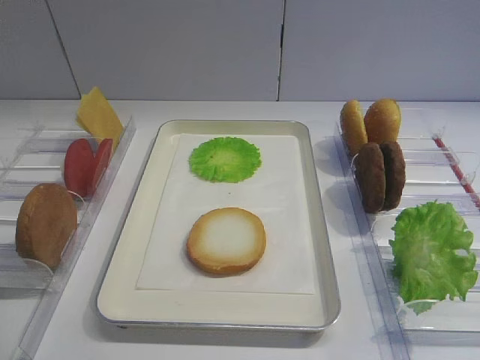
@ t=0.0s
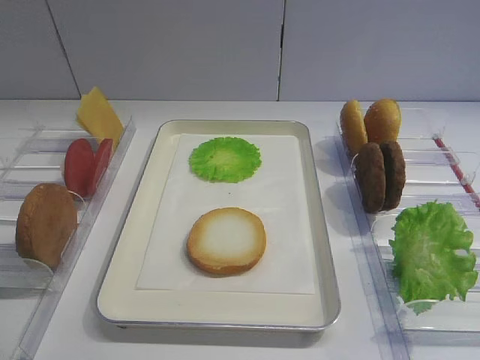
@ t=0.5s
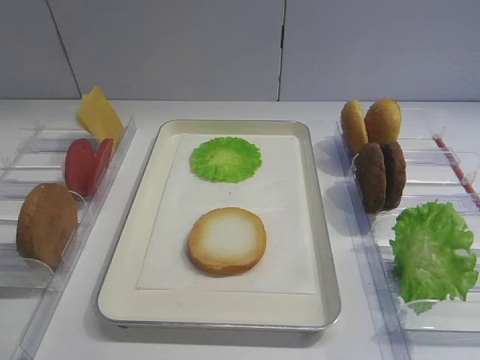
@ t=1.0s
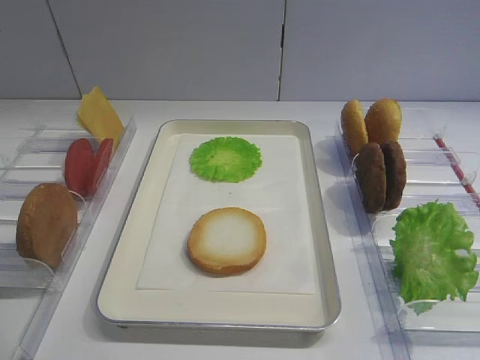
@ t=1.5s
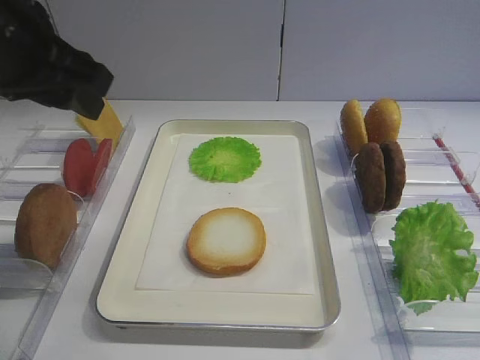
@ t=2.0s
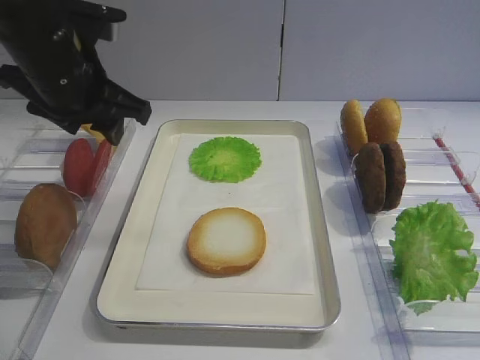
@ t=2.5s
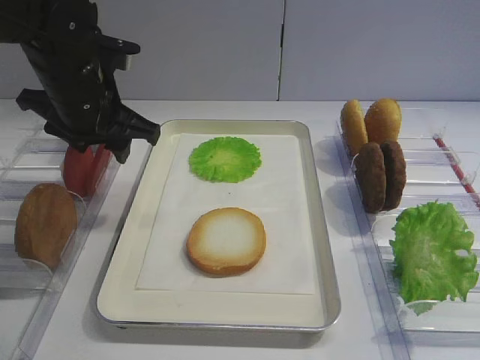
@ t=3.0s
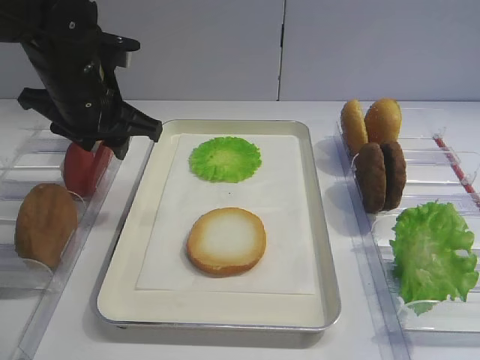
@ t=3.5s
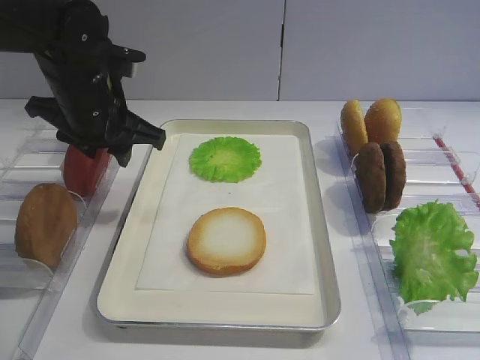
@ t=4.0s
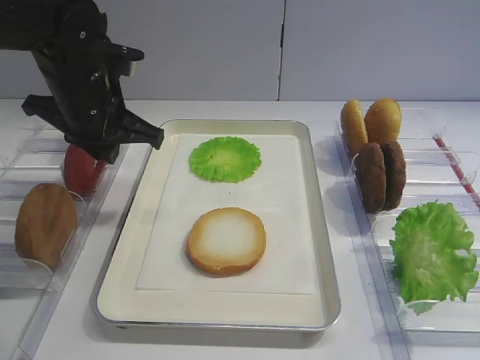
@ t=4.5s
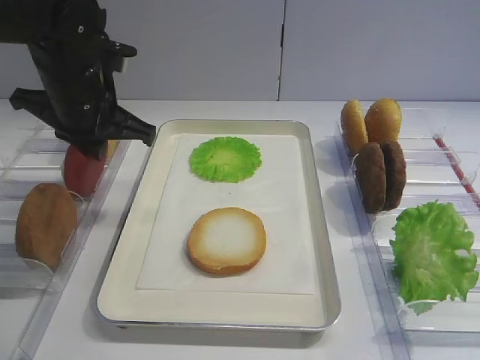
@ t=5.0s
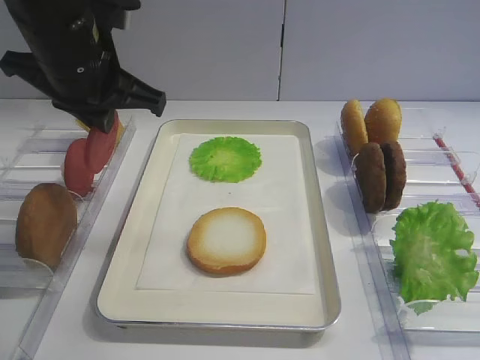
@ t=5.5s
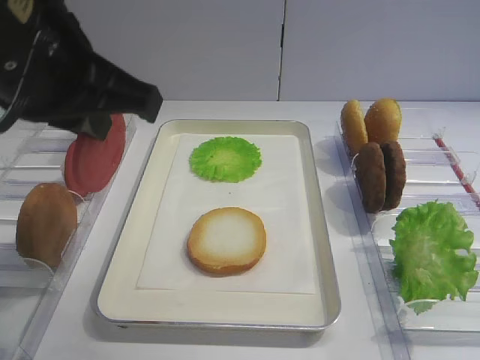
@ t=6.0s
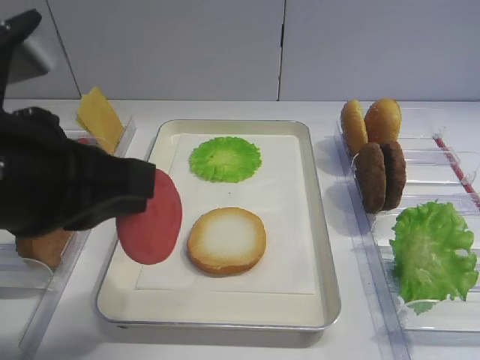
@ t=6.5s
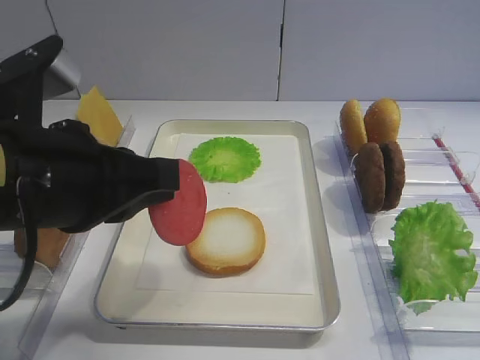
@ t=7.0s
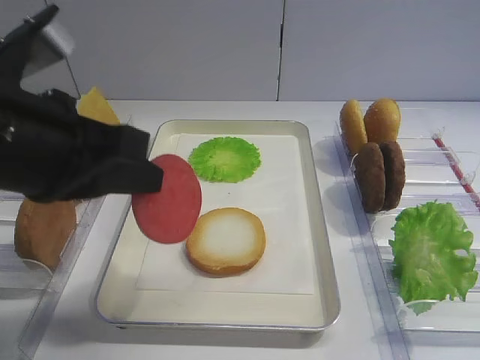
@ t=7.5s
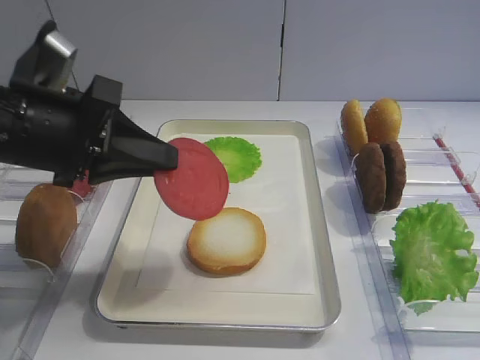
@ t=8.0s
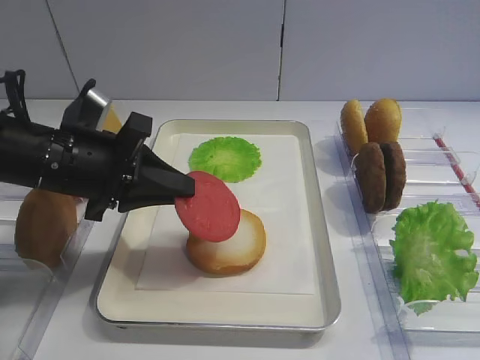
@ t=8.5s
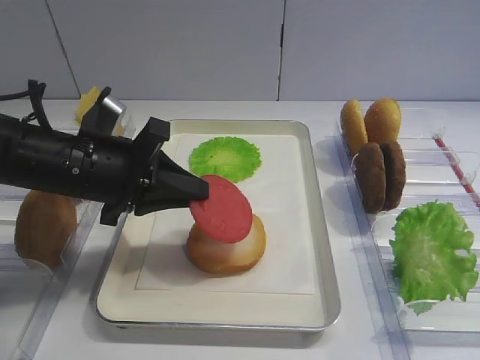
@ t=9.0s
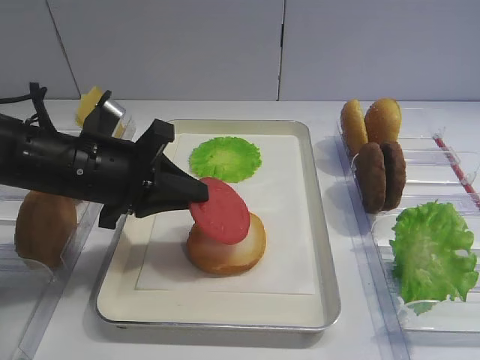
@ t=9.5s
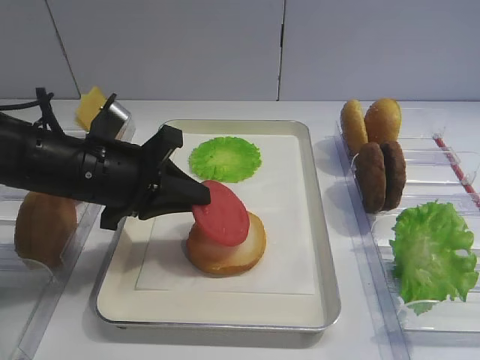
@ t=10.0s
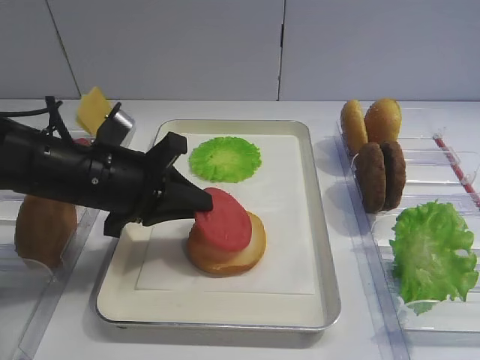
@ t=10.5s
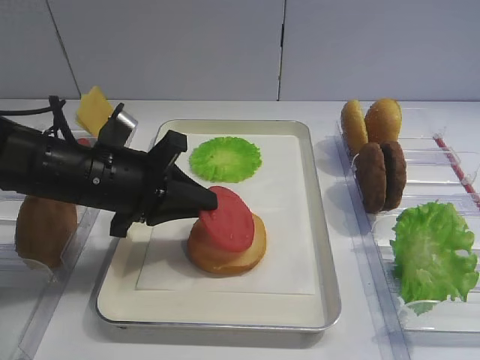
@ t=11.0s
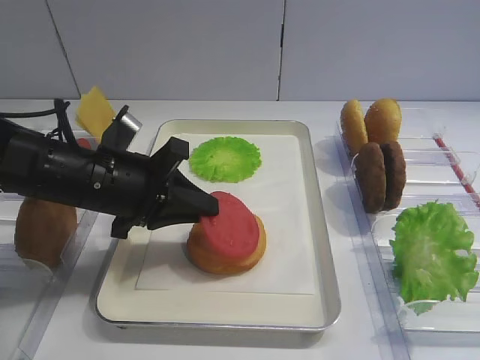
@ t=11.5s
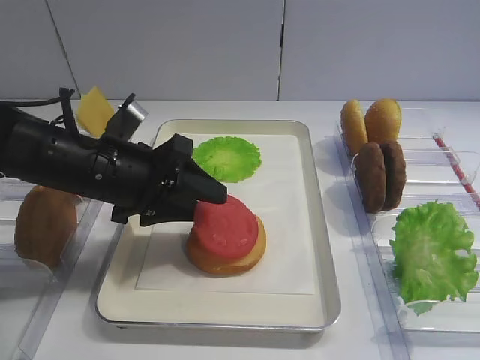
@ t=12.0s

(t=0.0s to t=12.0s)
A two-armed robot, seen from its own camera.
Step, t=0.0s - t=5.5s: Pick up the tomato slice with the left gripper.
t=2.0s - t=4.0s: The left gripper is displaced downward and forward by approximately 15 cm.
t=4.0s - t=6.0s: The left gripper shifts some 20 cm backward and upward, and closes its fingers.
t=6.0s - t=8.0s: The left gripper is displaced downward by about 10 cm.
t=8.0s - t=10.0s: The left gripper heads downward, covering some 5 cm.
t=10.0s - t=12.0s: The left gripper opens up.

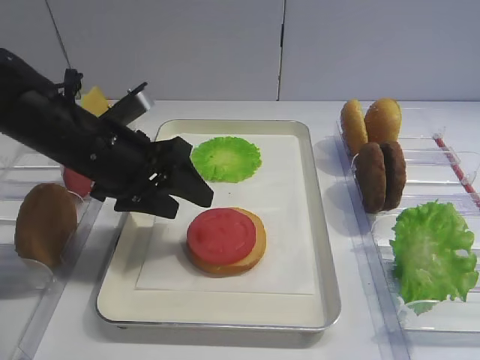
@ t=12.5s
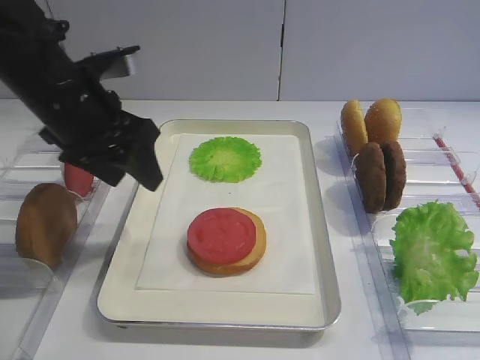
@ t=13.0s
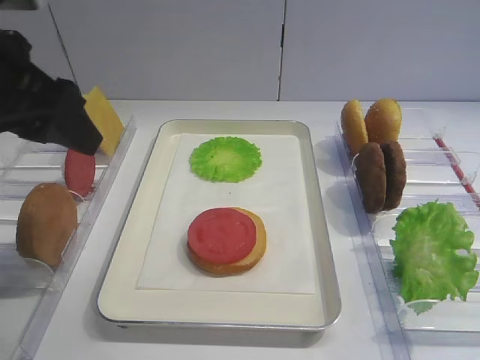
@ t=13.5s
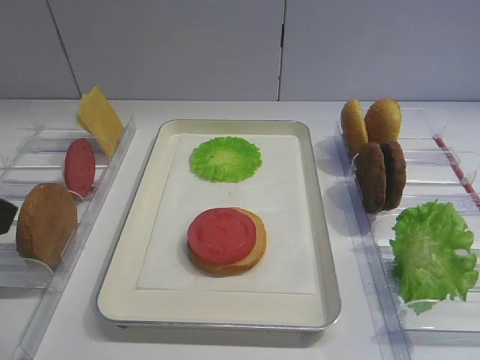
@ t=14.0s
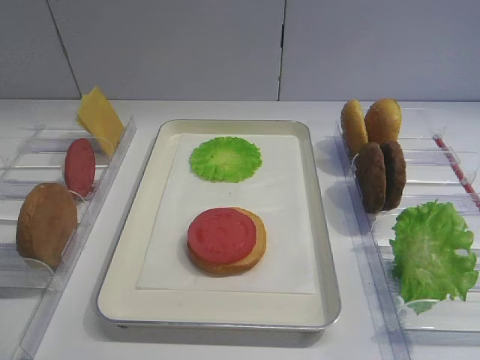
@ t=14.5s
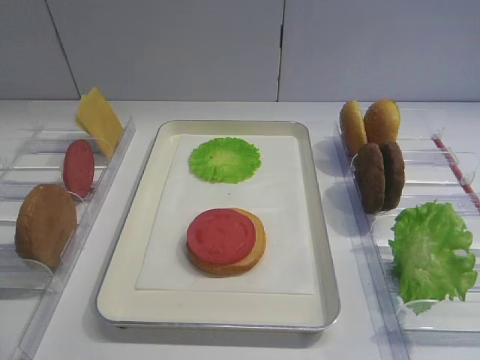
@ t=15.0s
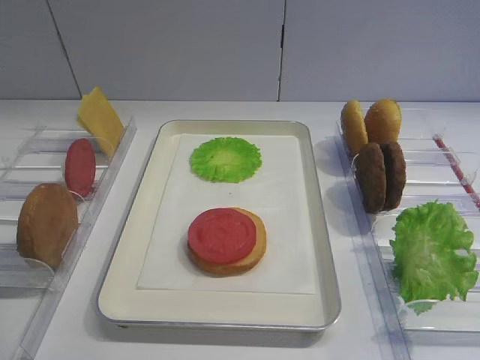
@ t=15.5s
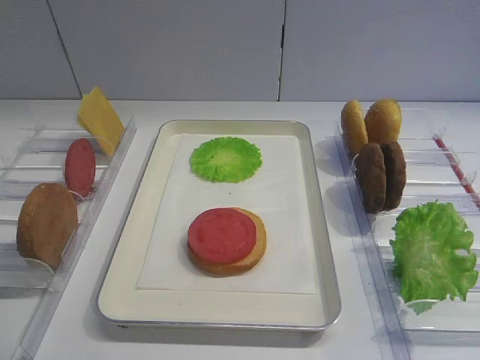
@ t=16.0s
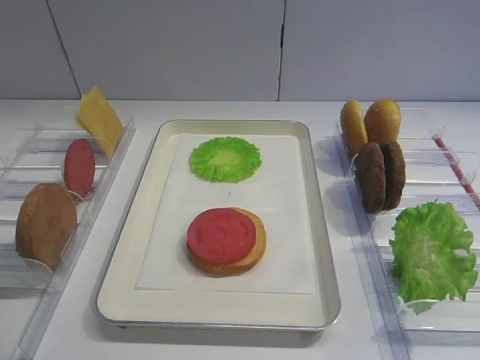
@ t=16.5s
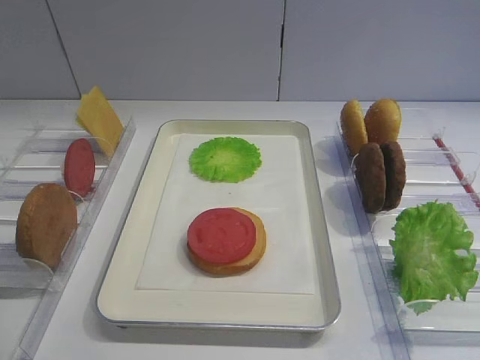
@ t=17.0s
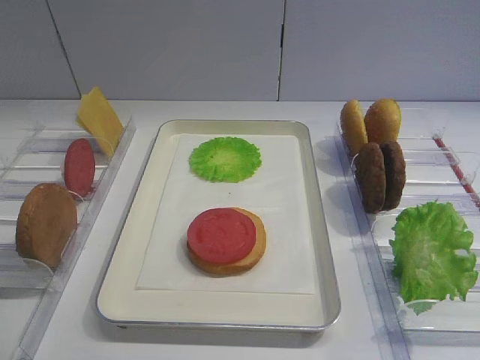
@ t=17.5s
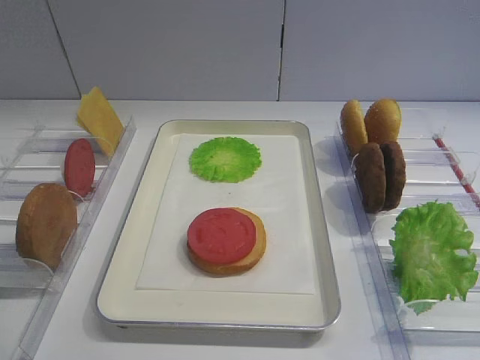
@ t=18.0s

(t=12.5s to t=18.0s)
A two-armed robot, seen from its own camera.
t=12.5s - t=14.5s: The left gripper goes roughly 30 cm backward and to the left.
t=16.0s - t=18.0s: The two grippers keep their place.

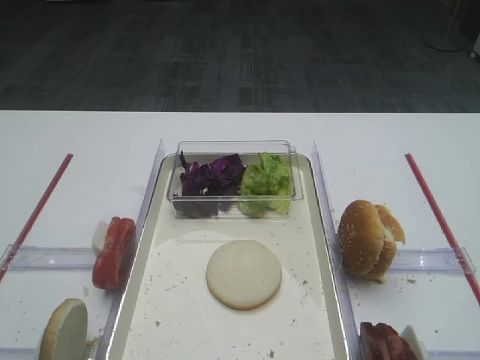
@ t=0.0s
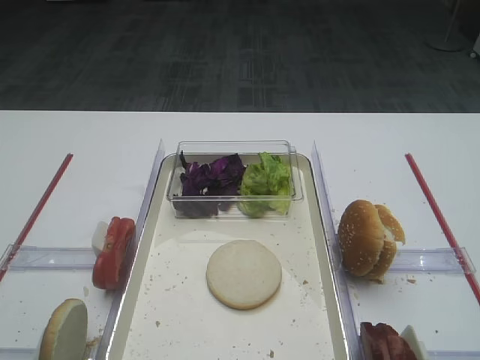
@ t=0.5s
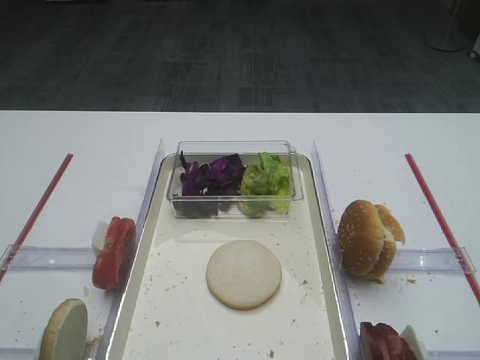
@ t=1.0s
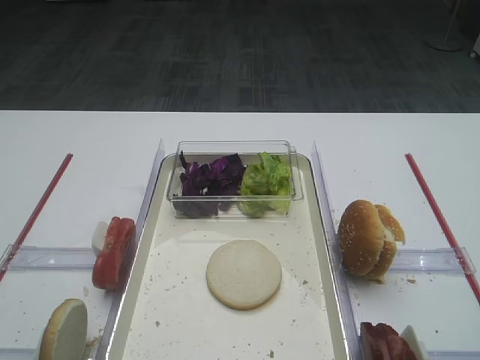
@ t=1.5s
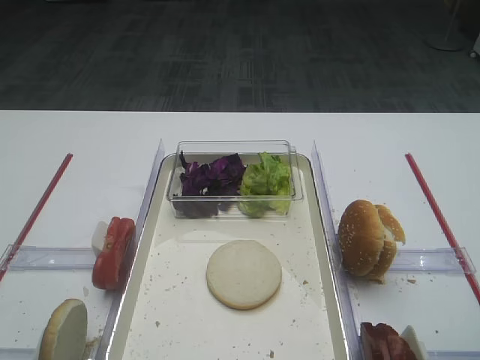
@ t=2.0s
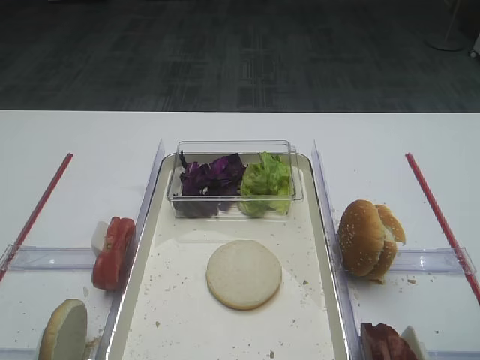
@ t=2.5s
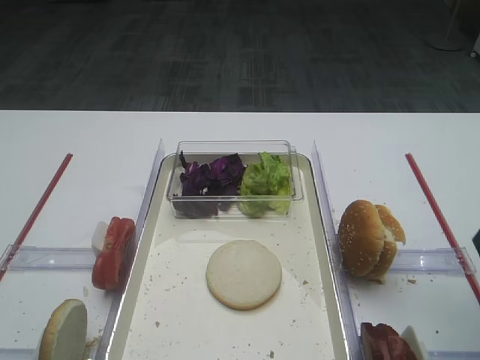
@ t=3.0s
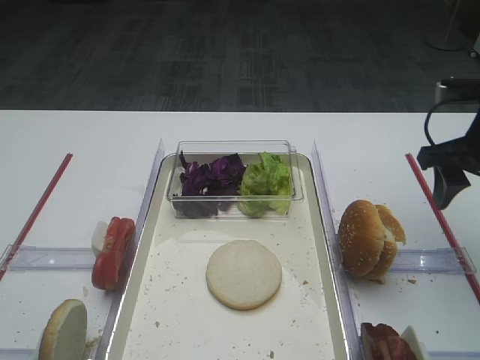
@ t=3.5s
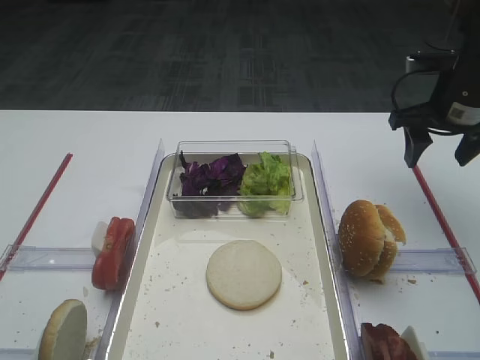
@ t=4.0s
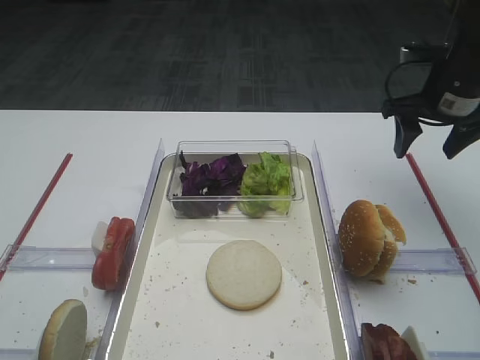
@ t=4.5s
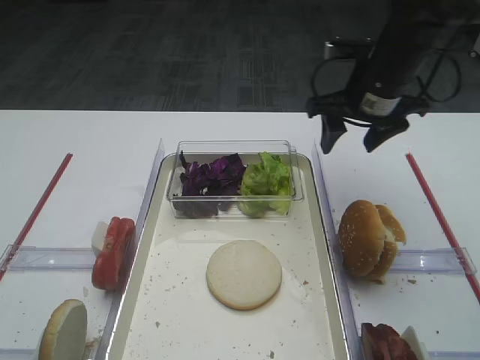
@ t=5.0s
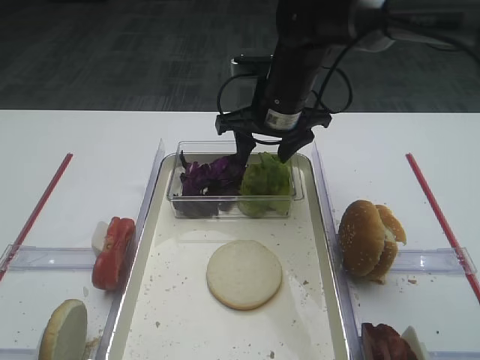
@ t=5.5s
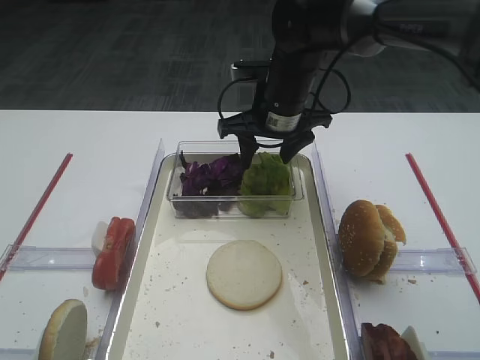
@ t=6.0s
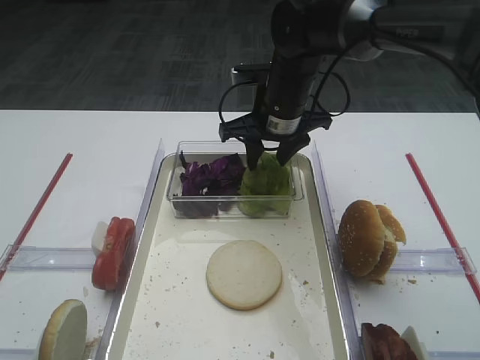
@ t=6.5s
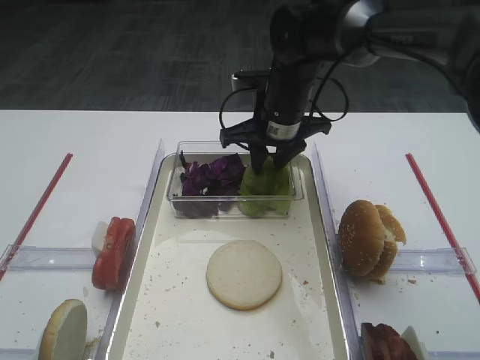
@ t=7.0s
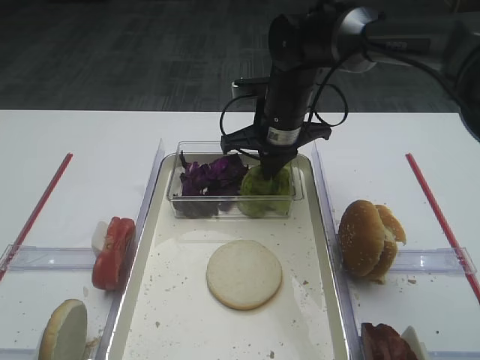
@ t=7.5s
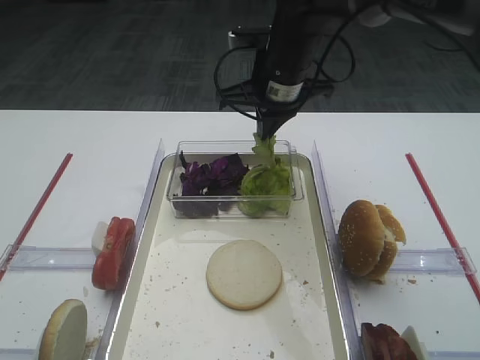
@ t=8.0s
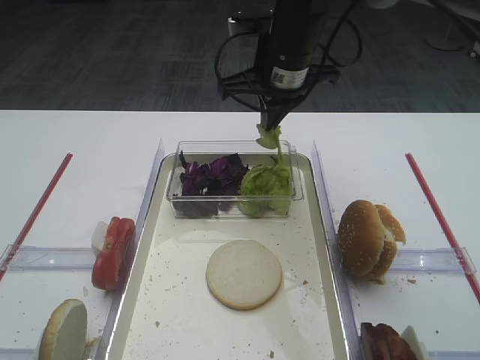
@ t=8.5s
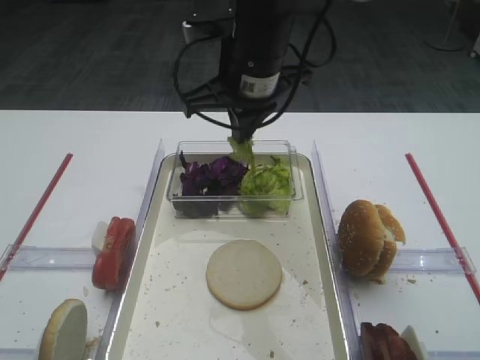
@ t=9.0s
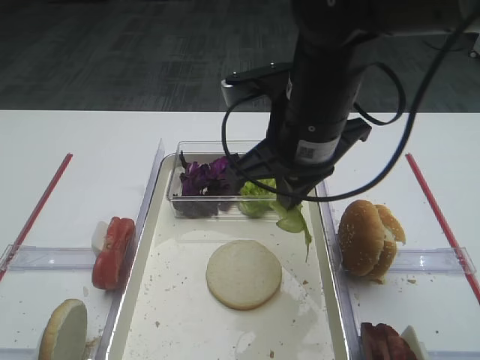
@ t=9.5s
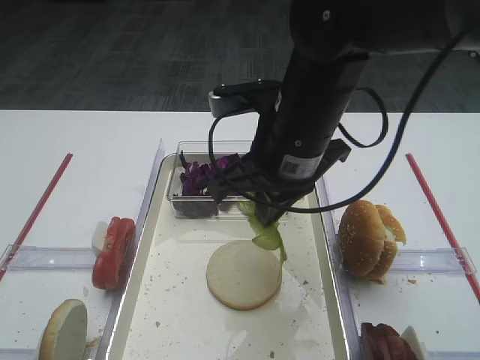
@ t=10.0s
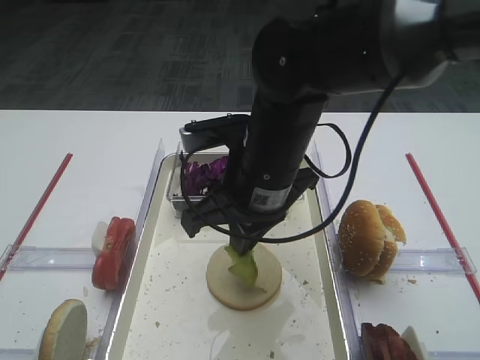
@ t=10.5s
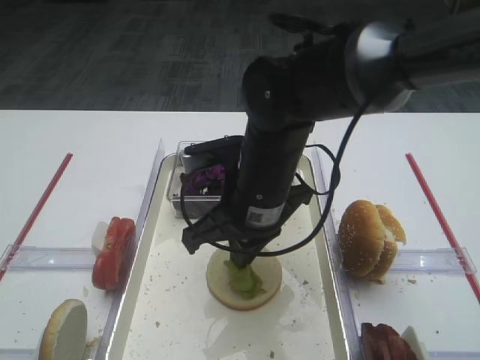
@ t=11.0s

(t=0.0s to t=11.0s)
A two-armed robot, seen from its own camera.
Step, t=0.0s - t=8.5s: Pick up the lettuce leaf with the right gripper.
t=2.0s - t=3.5s: The right gripper is displaced forward by approximately 20 cm.
t=3.5s - t=5.5s: The right gripper goes approximately 25 cm to the left and forward.
t=5.5s - t=7.5s: The right gripper closes up.
t=7.5s - t=9.0s: The right gripper goes roughly 10 cm upward and backward.
t=9.0s - t=11.0s: The right gripper shifts some 15 cm downward and backward.
